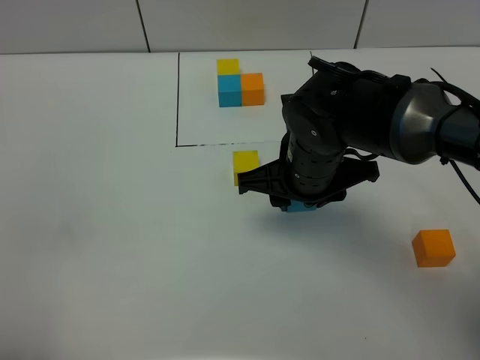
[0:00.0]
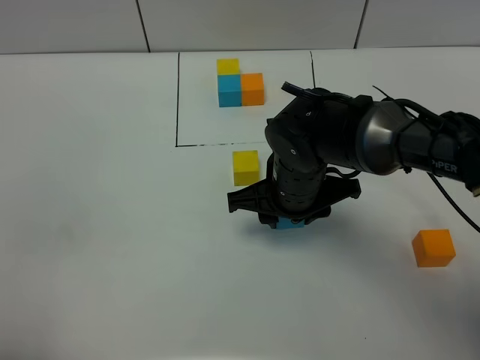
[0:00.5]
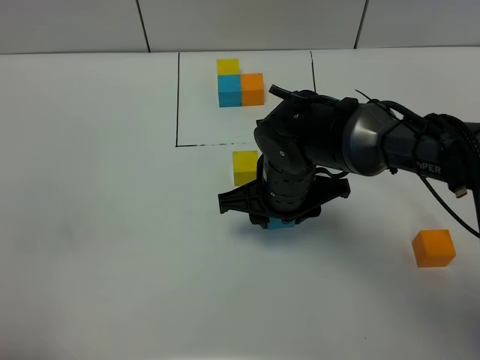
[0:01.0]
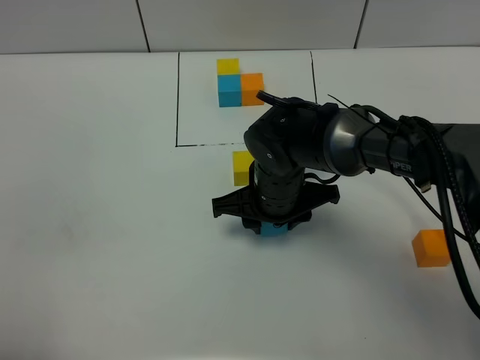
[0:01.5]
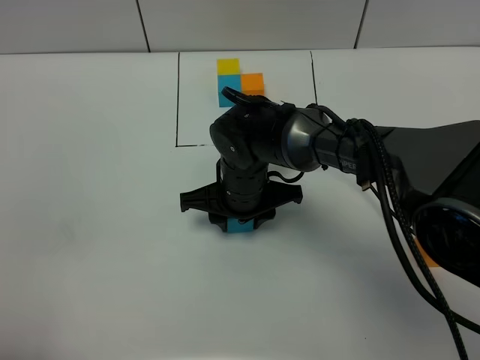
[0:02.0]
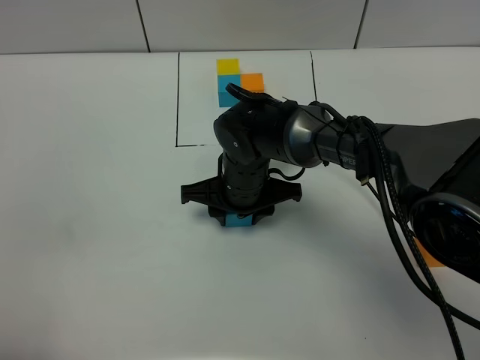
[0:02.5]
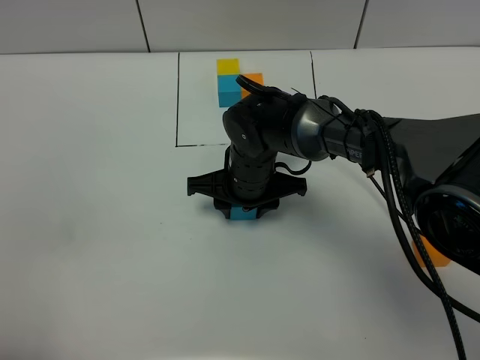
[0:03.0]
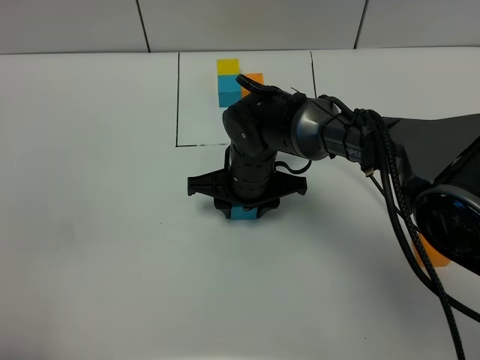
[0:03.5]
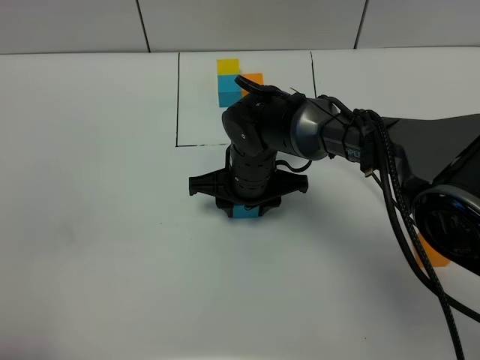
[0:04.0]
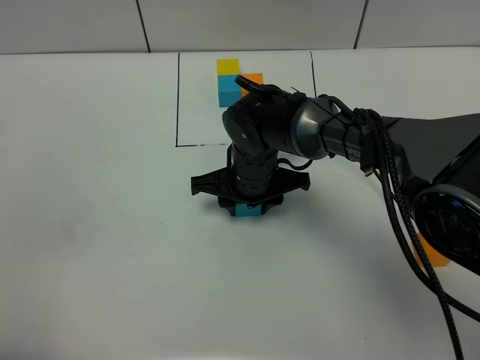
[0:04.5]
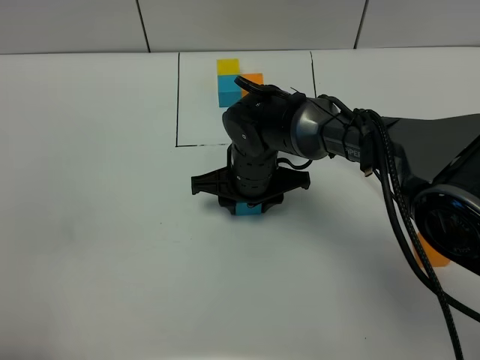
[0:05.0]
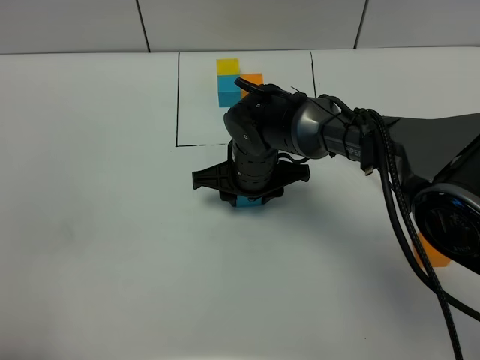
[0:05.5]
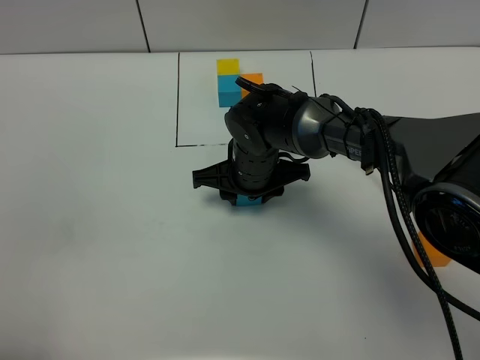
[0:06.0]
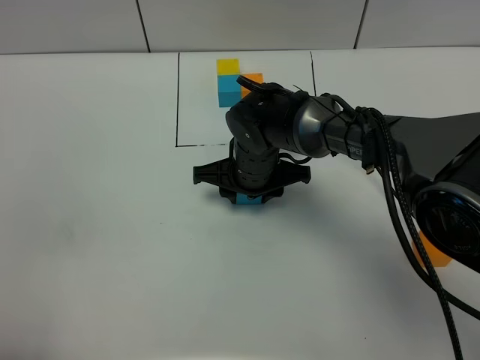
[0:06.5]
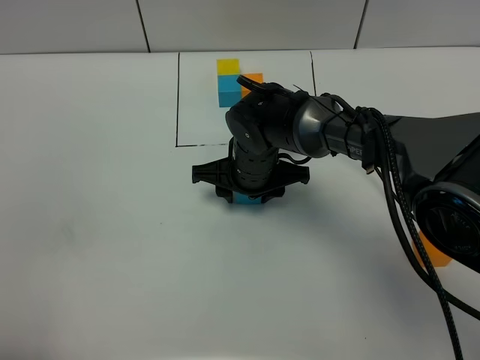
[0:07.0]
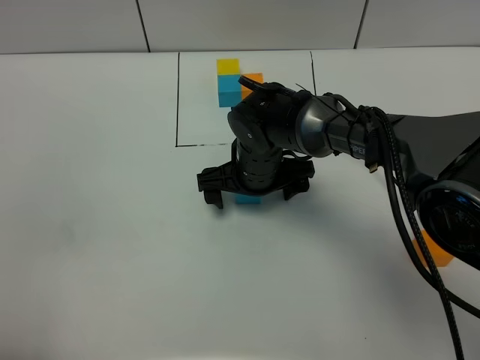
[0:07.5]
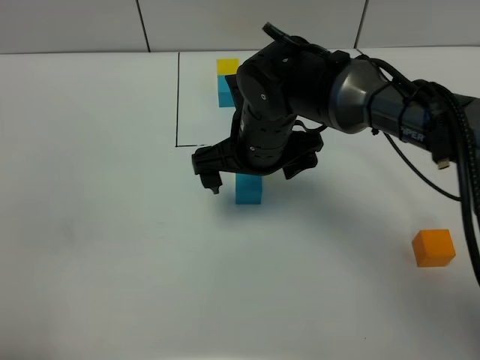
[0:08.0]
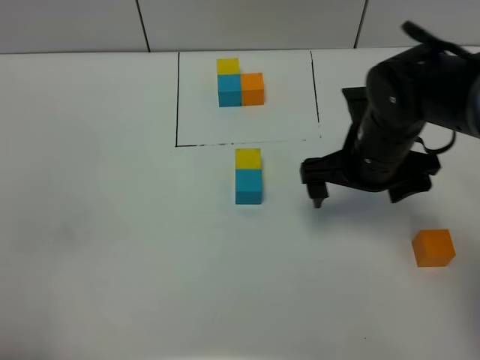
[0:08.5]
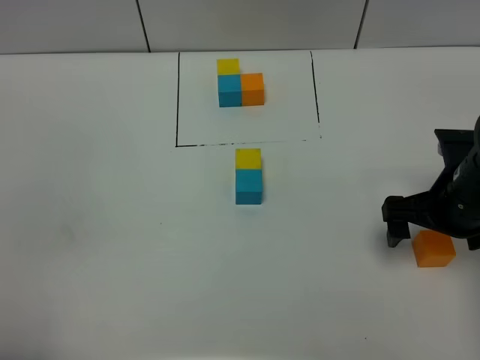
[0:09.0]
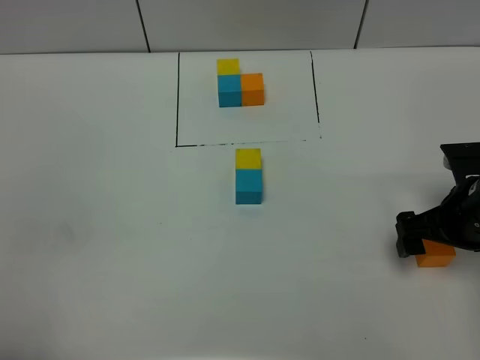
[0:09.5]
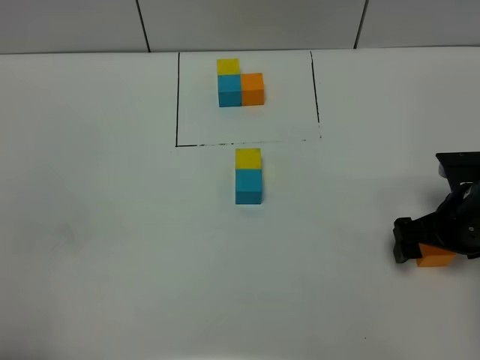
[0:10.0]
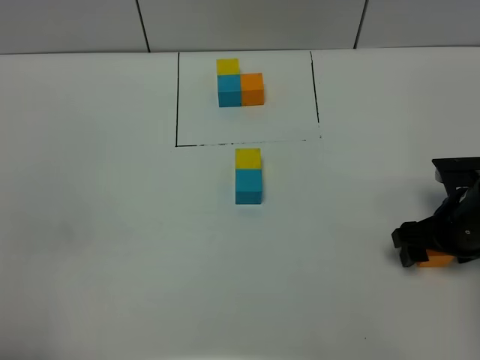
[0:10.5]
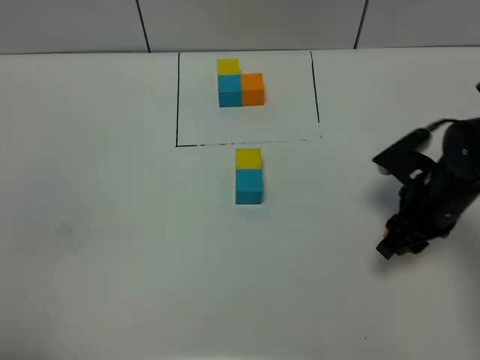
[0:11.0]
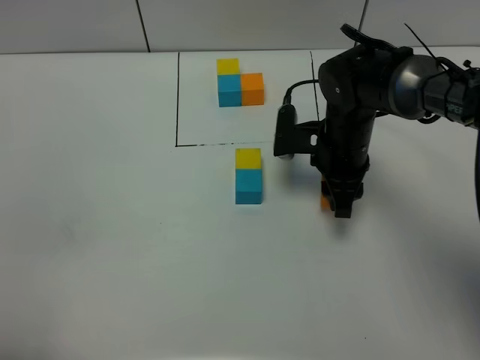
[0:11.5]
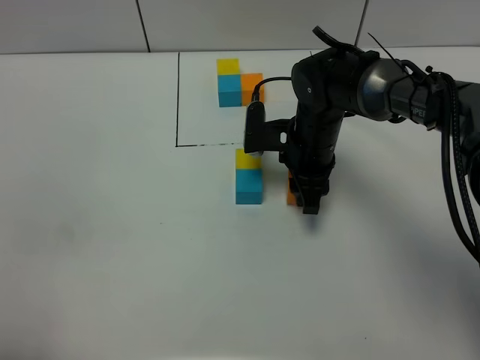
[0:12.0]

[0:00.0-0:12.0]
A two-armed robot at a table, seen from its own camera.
Task of the whole recording: According to the building block template in front, assemble the scattered blocks together.
Step, 0:00.0 to 0:07.0: Put the blue build block on the behind of the yellow build block.
0:00.0 to 0:02.0: The right gripper is displaced downward and to the left by about 10 cm.
0:02.0 to 0:06.0: The grippers make only small movements.
0:06.0 to 0:08.0: The right gripper travels upward by approximately 10 cm, and opens its fingers.
0:08.0 to 0:10.0: The right gripper is displaced to the right by about 25 cm.
0:10.0 to 0:12.0: The right gripper heads to the left and forward, covering about 20 cm, and closes up.

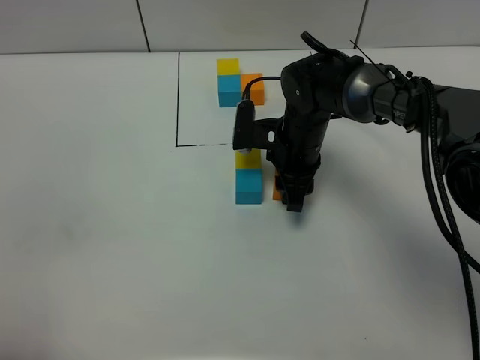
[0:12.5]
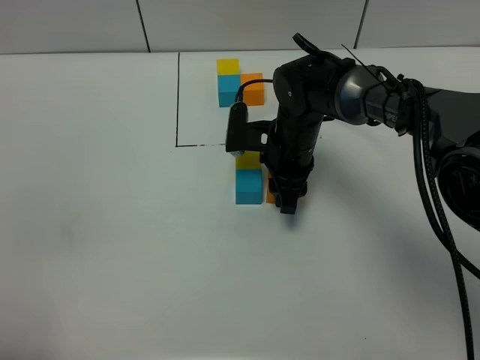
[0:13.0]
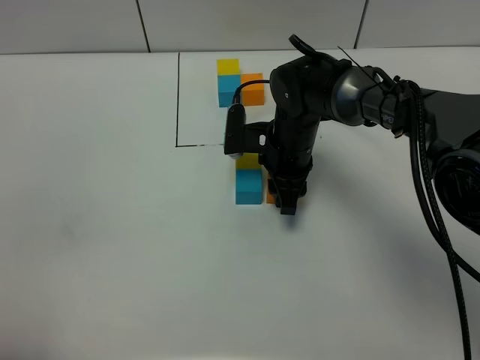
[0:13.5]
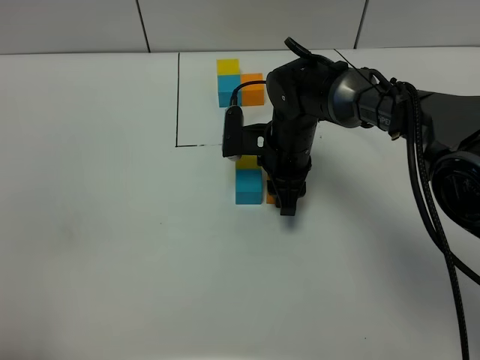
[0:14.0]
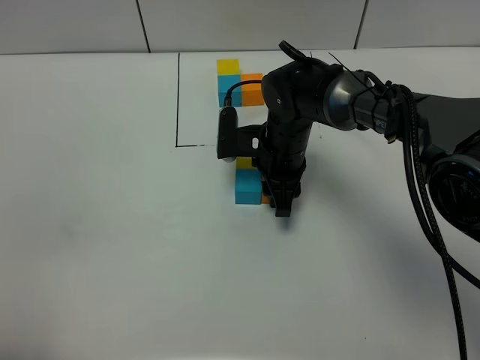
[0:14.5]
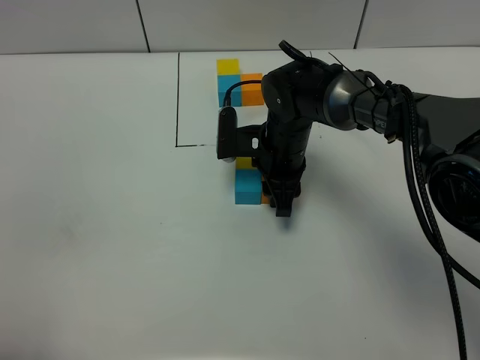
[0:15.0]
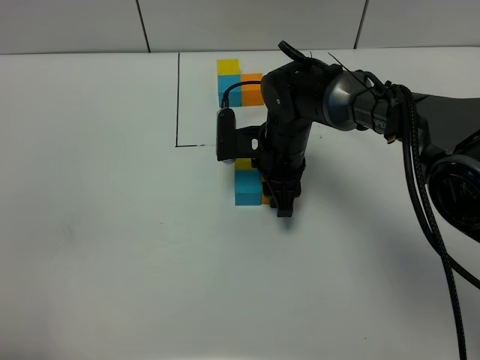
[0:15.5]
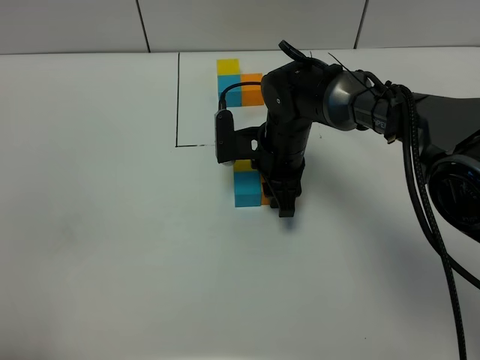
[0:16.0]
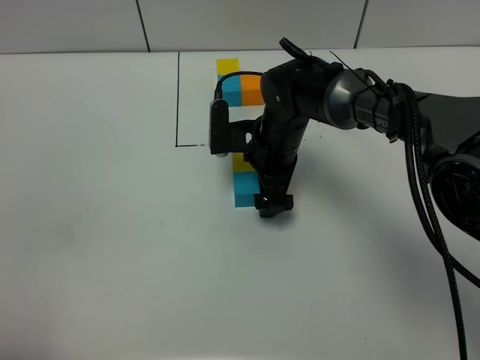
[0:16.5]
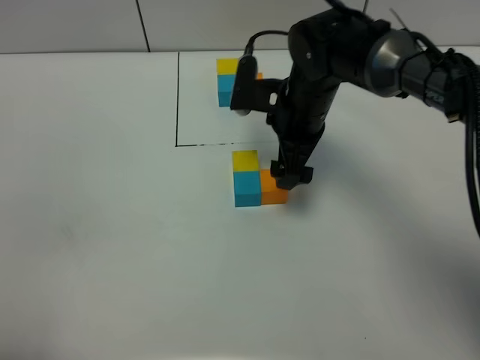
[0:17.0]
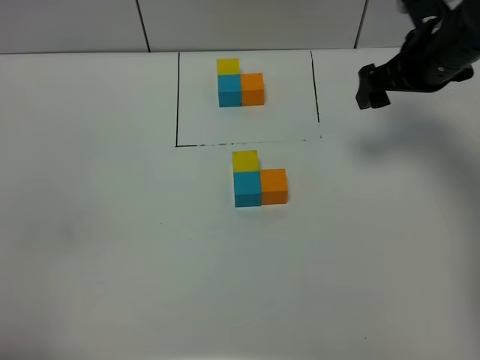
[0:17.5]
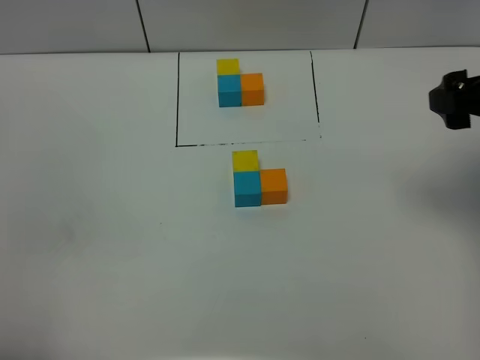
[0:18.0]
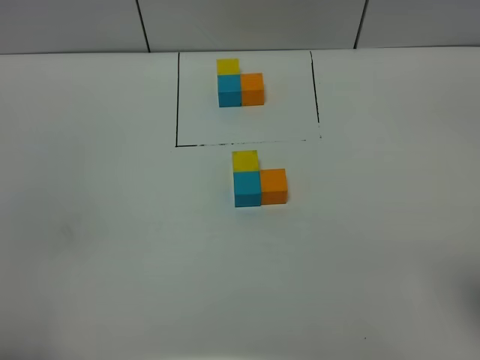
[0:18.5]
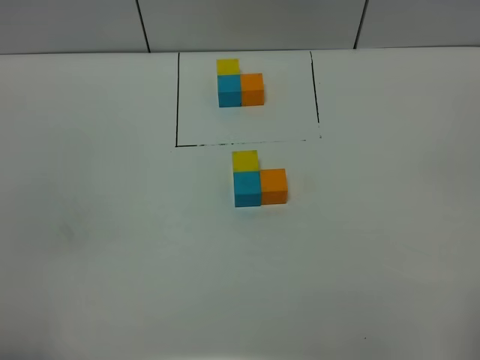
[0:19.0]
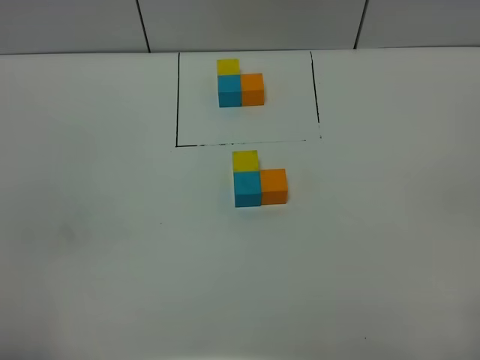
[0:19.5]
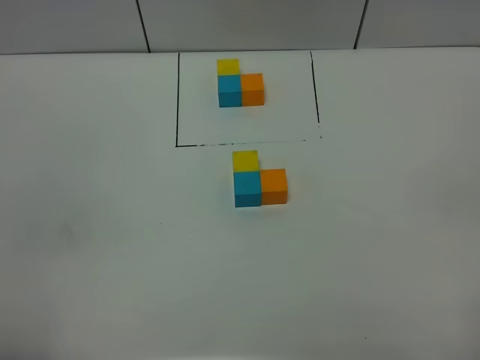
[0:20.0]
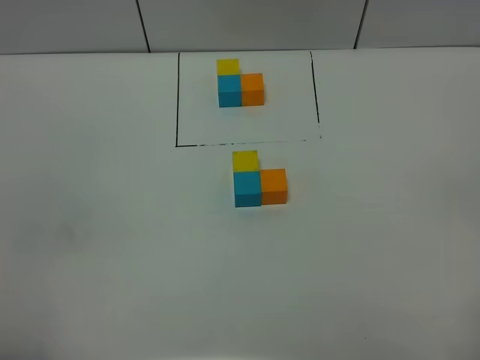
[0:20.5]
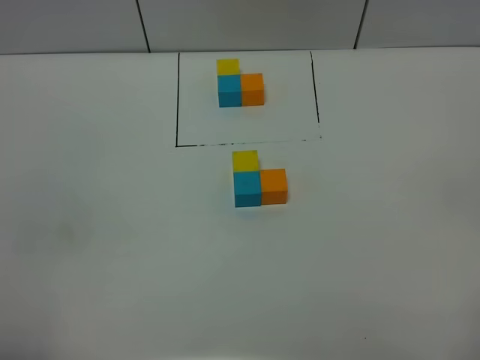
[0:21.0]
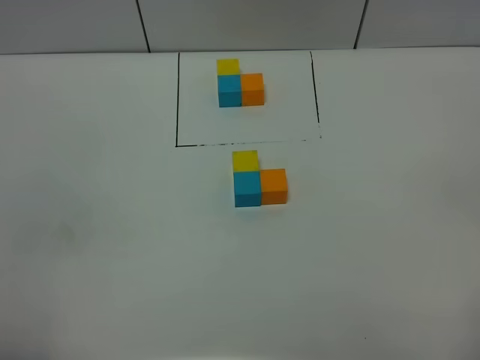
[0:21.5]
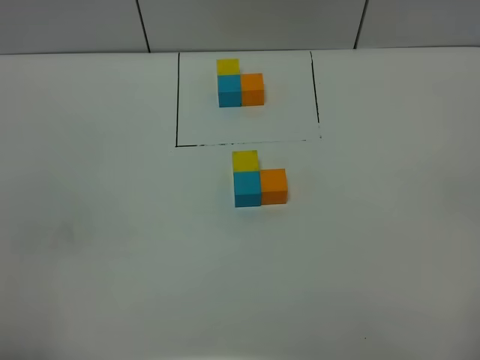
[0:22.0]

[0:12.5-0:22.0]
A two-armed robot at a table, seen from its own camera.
Task of the whole recording: According to the building block template in front, assemble the scattered blocks together.
Step, 0:12.5 to 0:16.0: Put the orange build block on the right of the blue build block.
0:12.5 to 0:14.5: The grippers stay close to where they were, moving slightly.
0:14.5 to 0:16.5: The right gripper opens up.
0:16.5 to 0:18.0: The right gripper shifts approximately 35 cm to the right, upward and backward.
0:18.0 to 0:20.0: The right gripper travels backward by some 25 cm.
